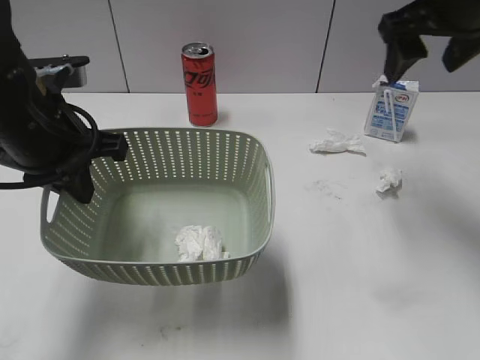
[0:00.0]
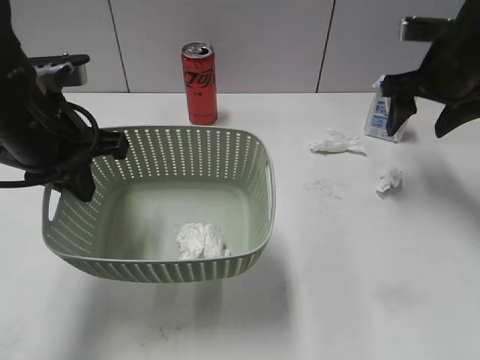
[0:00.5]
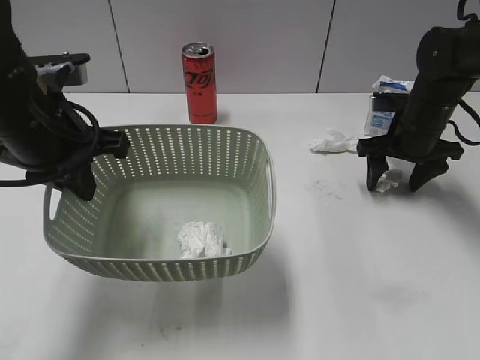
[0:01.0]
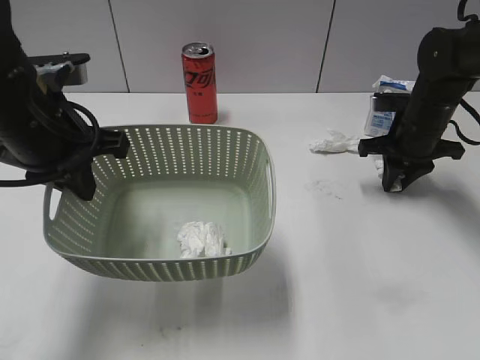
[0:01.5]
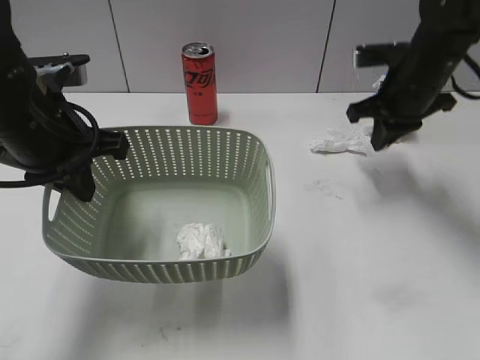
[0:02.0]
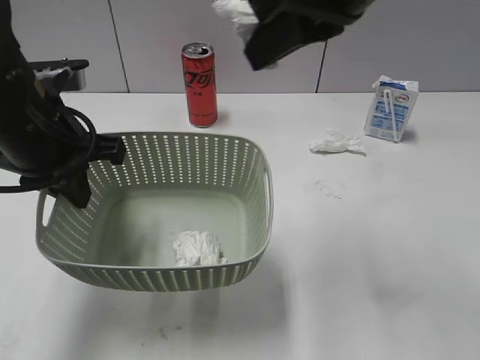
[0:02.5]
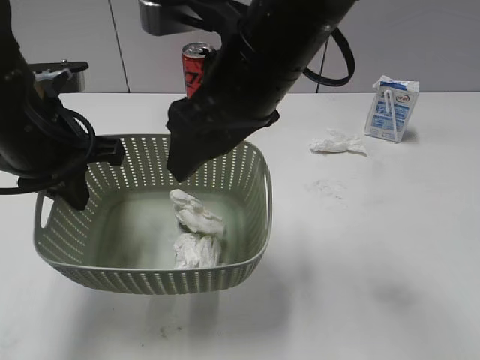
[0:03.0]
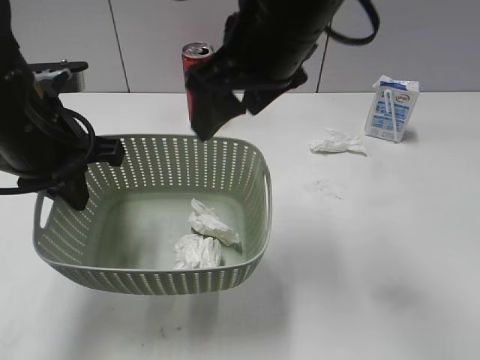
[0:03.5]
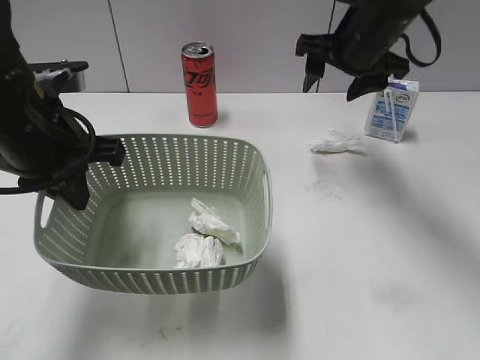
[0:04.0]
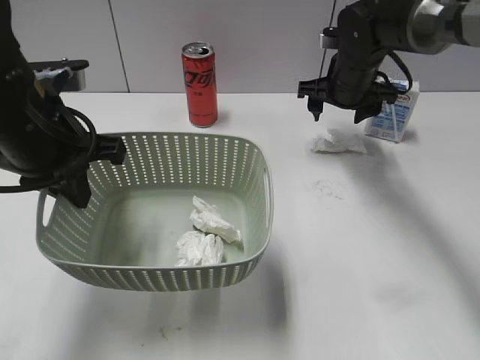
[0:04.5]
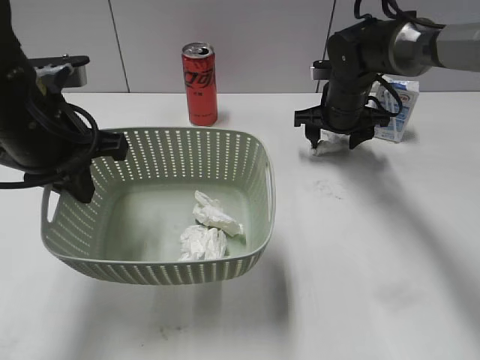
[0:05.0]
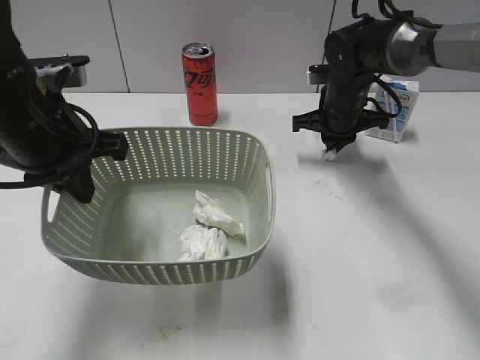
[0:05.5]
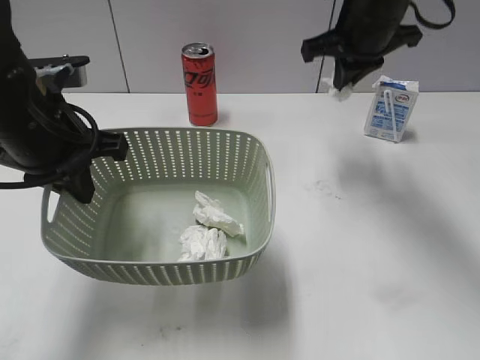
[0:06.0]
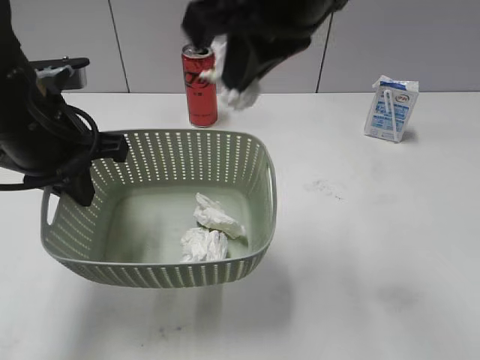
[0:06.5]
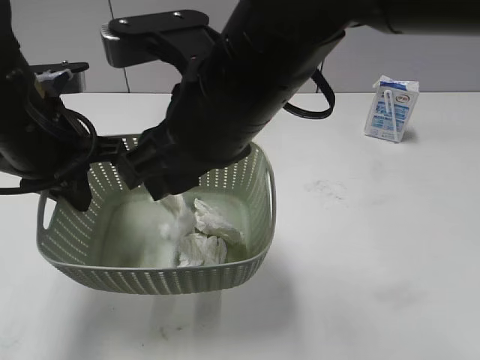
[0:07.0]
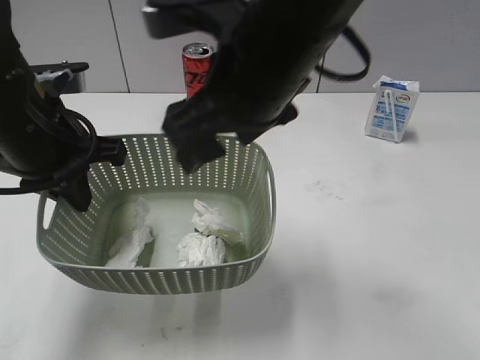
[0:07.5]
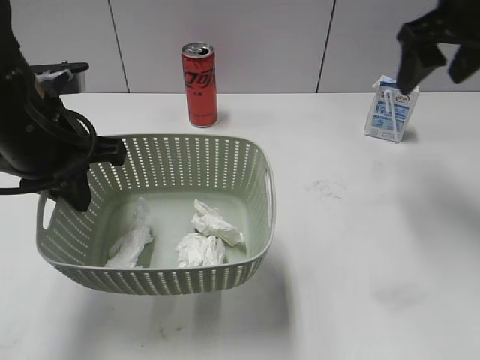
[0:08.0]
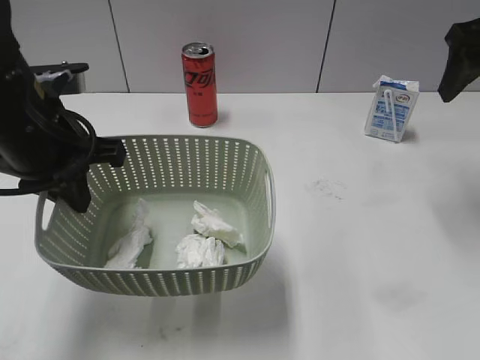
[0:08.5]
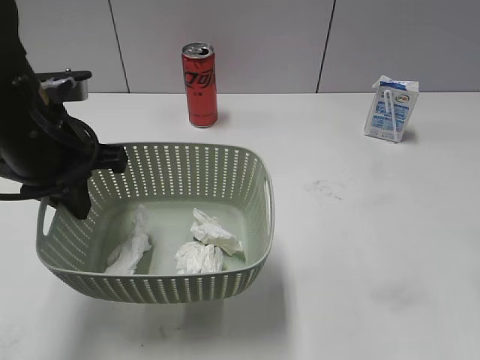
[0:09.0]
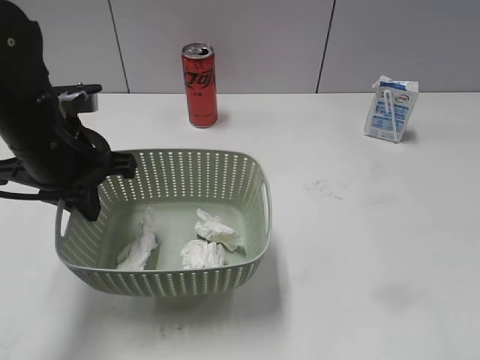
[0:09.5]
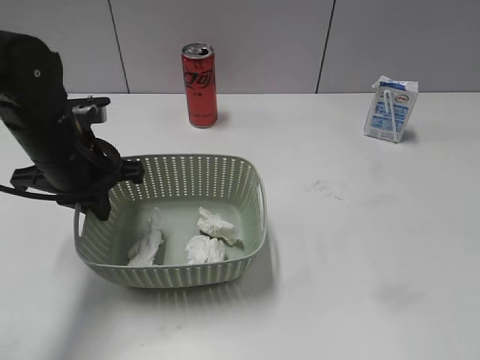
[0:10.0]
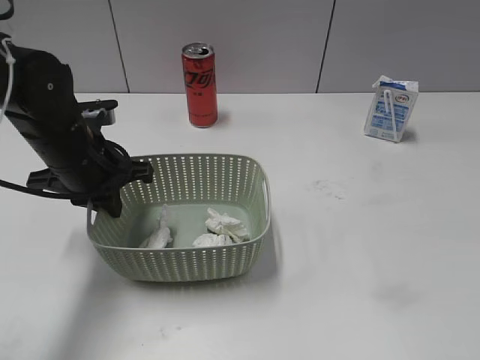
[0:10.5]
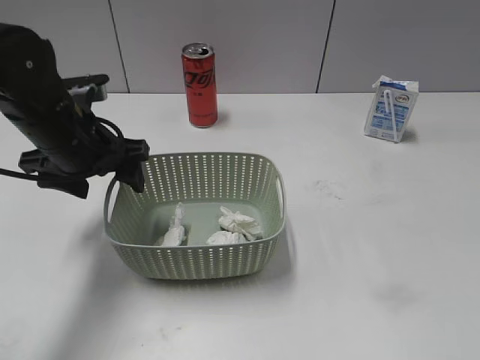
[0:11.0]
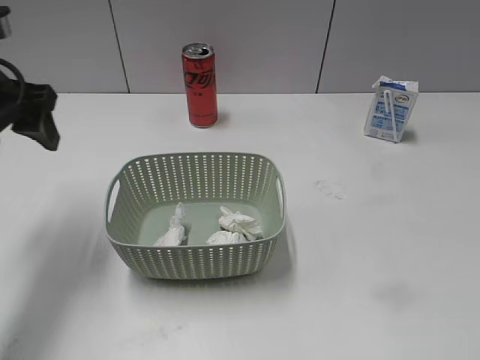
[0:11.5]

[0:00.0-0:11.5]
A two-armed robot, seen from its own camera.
Step, 0:00.0 to 0:01.5: Grasp the waste paper with right gripper.
Step, 0:02.0 to 0:03.0: Place the waste paper in the basket with right gripper.
Step, 0:03.5 to 0:05.5: Grasp the waste paper with right gripper.
Step, 0:06.0 to 0:07.5: Place the waste paper in the basket with right gripper.
Step, 0:08.0 to 0:11.0: Place the basket on the table with left gripper.
0:00.0 to 0:02.0: The right gripper travels downward and forward by roughly 15 cm, and closes up.
0:02.0 to 0:04.0: The right gripper goes approximately 10 cm to the left and upward, and opens up.
0:04.0 to 0:06.0: The right gripper travels downward and back again, some 15 cm each way, and closes.
0:06.0 to 0:07.5: The right gripper travels backward and to the left by some 20 cm, and opens its fingers.
0:07.5 to 0:09.5: The right gripper shifts approximately 30 cm to the right and backward.
0:09.5 to 0:11.5: The left gripper heads to the left and upward, covering roughly 10 cm, and opens its fingers. The right gripper shifts roughly 10 cm backward.

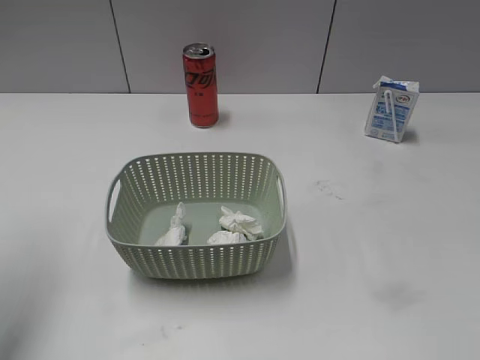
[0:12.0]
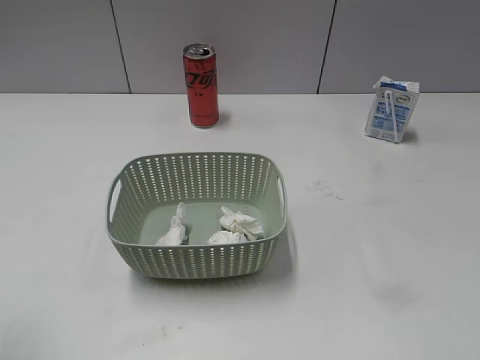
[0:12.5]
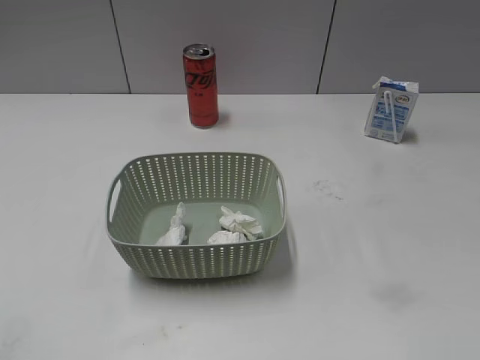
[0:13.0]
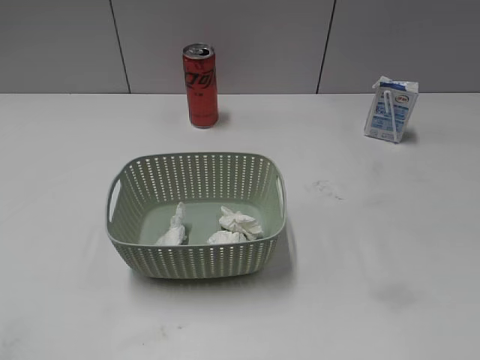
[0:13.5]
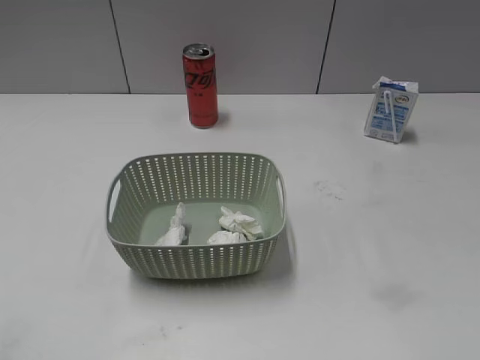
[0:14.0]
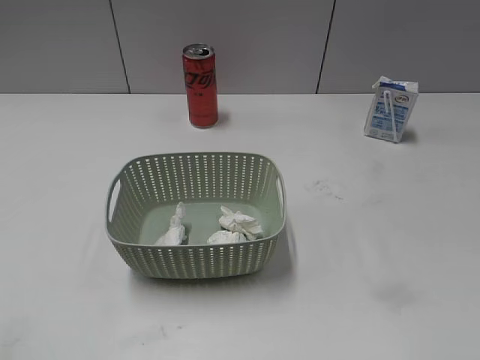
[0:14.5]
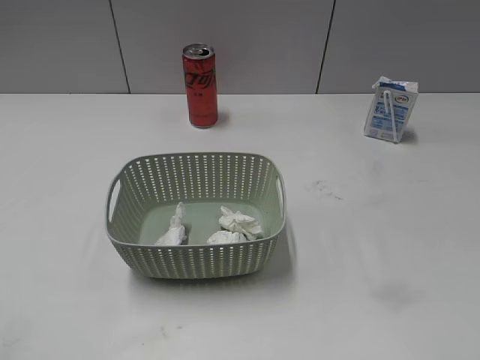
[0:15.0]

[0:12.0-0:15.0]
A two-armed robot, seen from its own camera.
0:12.0 to 0:13.5: The left gripper moves backward, some 25 cm.
0:13.5 to 0:15.0: Neither gripper changes place.

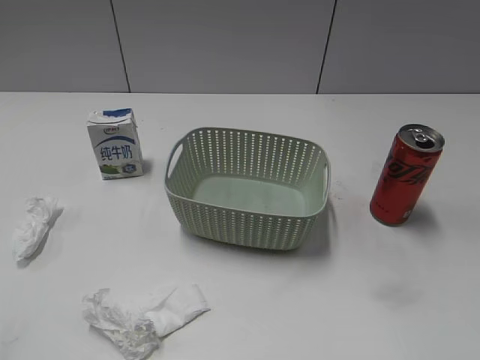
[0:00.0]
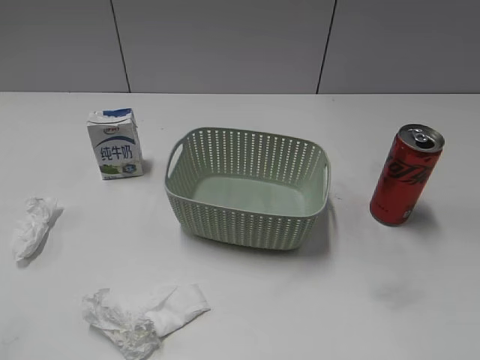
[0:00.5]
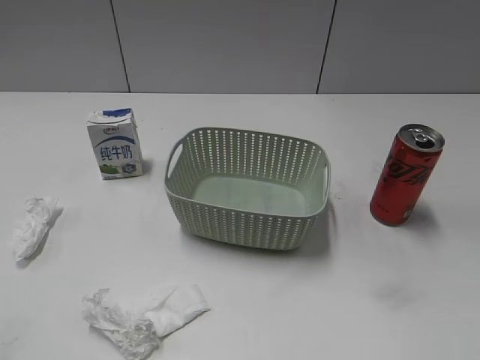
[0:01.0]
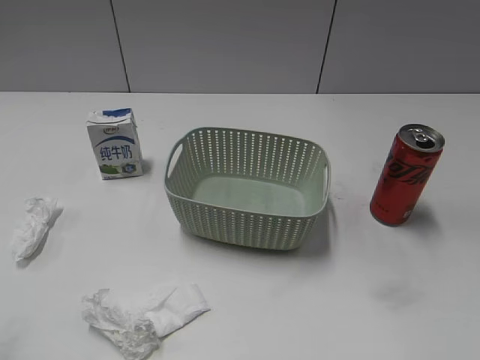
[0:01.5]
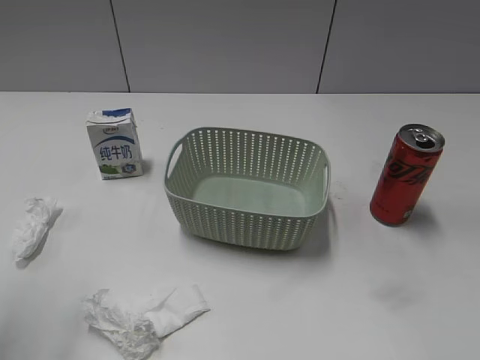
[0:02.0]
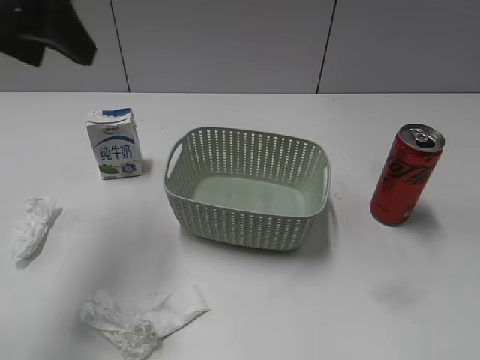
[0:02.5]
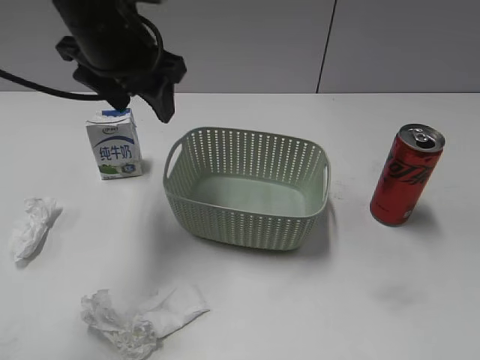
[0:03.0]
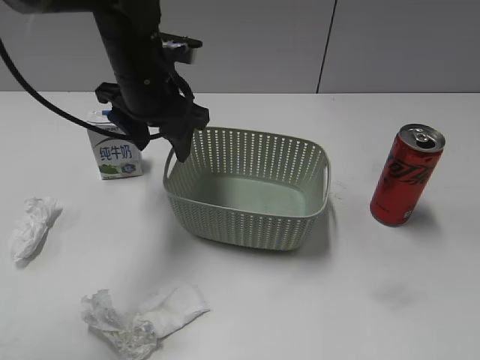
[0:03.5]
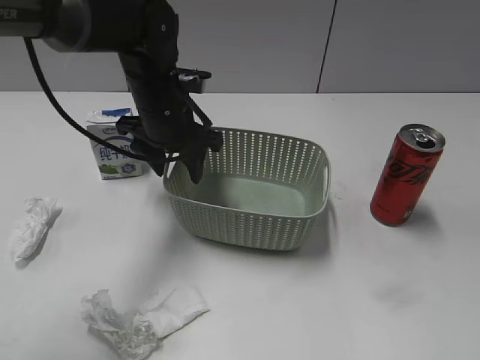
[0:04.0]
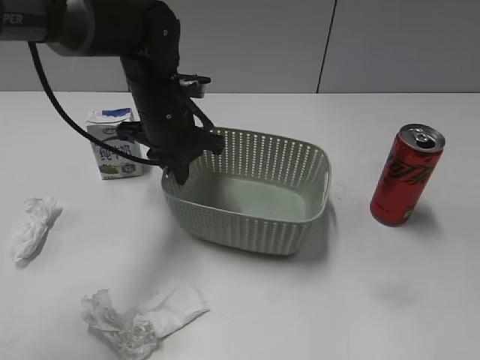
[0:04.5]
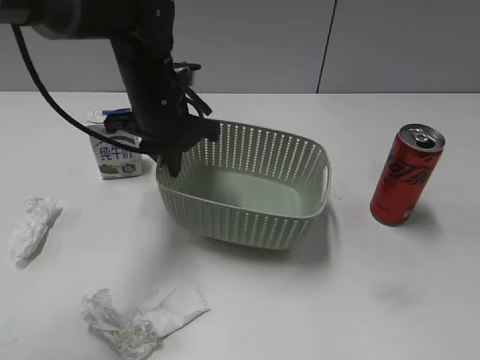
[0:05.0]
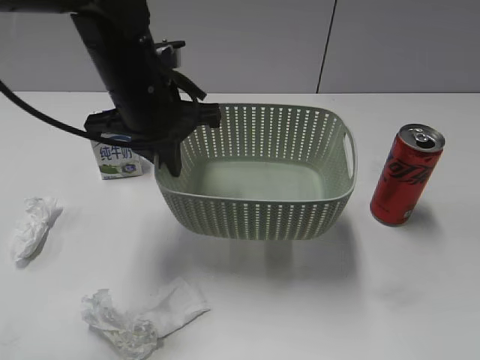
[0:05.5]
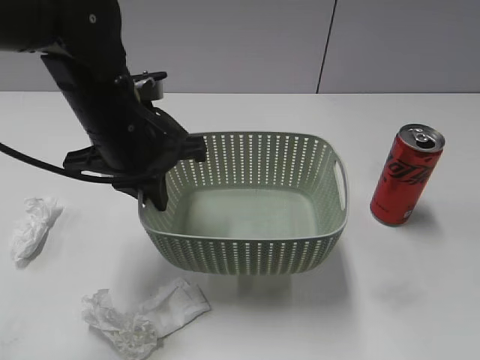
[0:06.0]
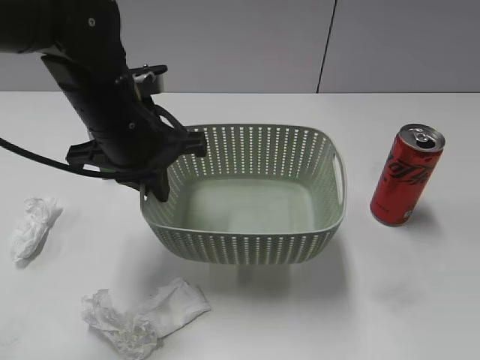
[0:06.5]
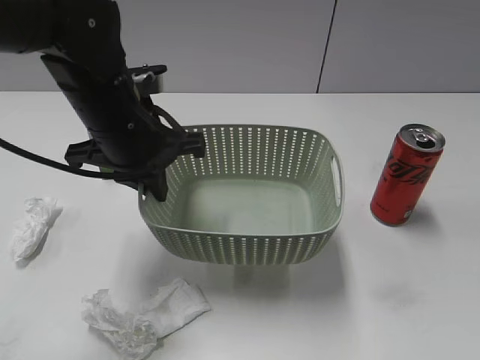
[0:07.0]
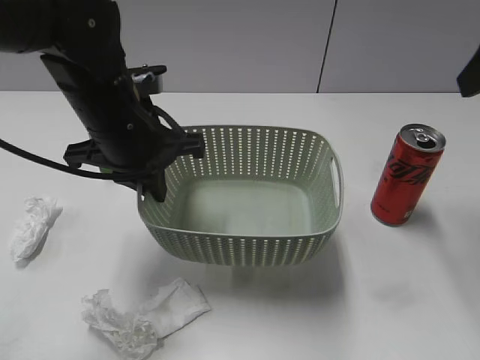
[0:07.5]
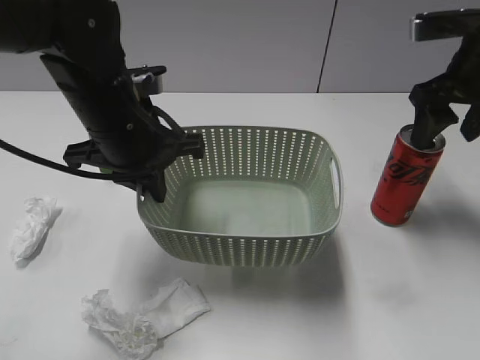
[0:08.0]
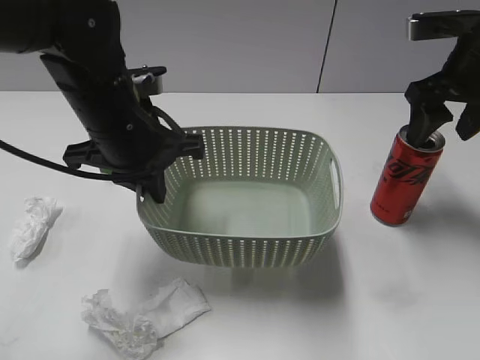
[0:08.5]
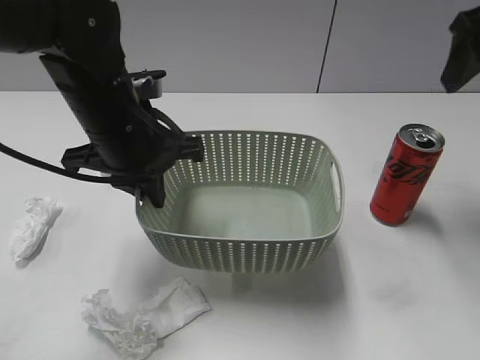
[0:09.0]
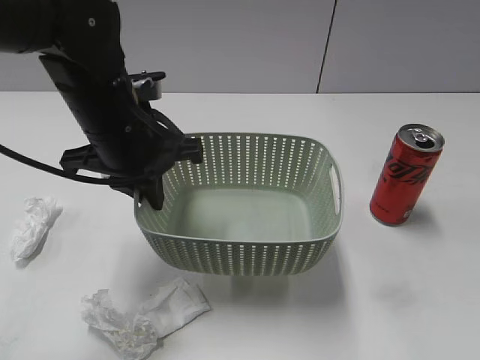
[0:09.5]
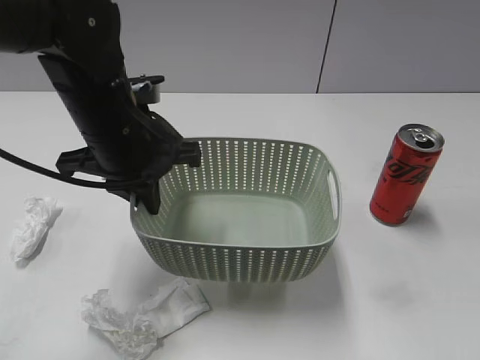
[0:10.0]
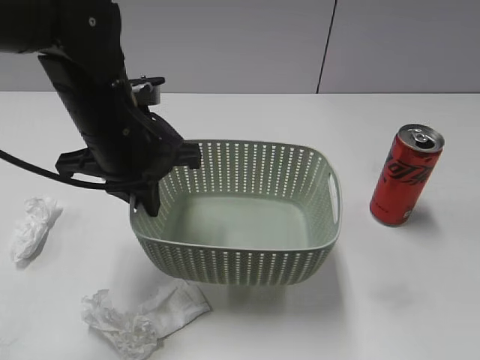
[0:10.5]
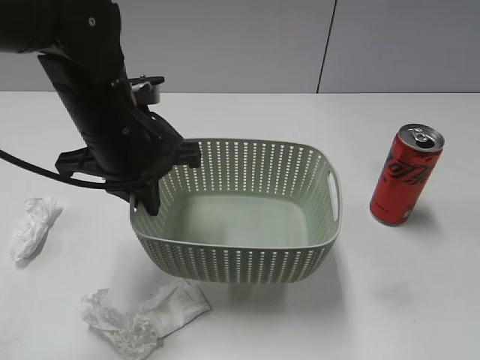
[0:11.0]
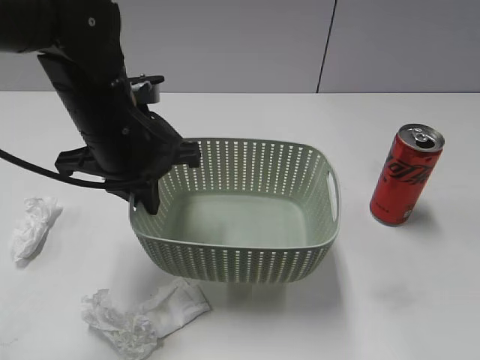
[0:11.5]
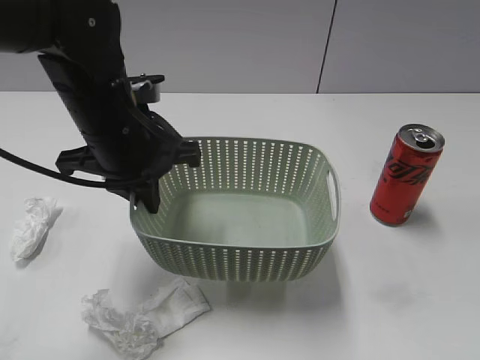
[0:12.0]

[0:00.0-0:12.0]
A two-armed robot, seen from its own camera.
Step, 0:02.5 to 0:04.5: Grasp the basket with left gripper.
Step, 0:05.0 to 0:07.0: Lift the basket with left gripper.
0:02.0 to 0:04.0: The left gripper goes approximately 35 cm forward, to the right and downward.
0:04.0 to 0:06.0: The left gripper shifts some 10 cm backward, and closes up.
0:06.0 to 0:08.0: The right gripper moves forward, about 35 cm, and opens and closes again.
0:08.0 to 0:10.0: The right gripper heads backward, covering some 30 cm.
